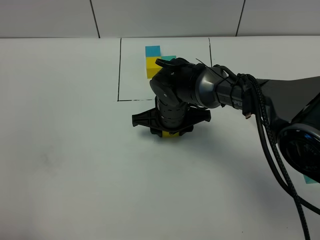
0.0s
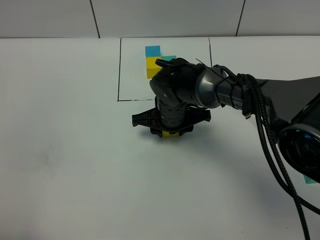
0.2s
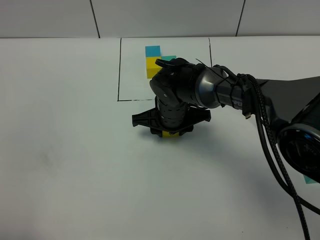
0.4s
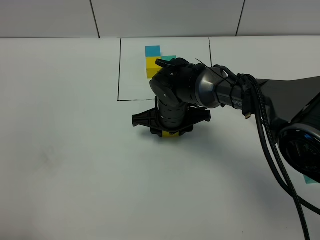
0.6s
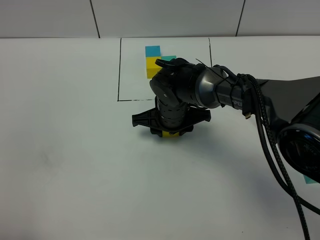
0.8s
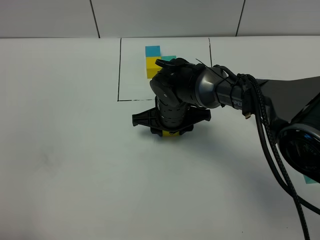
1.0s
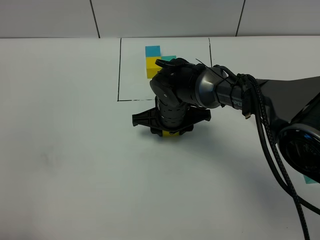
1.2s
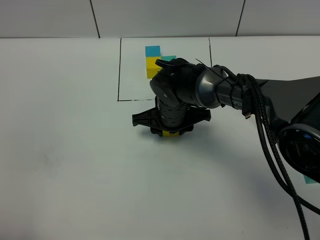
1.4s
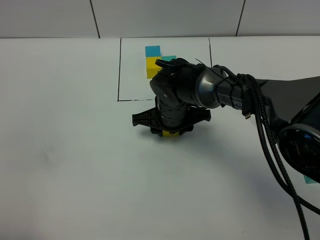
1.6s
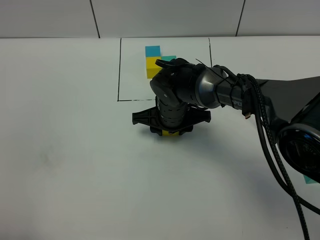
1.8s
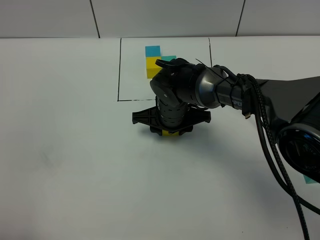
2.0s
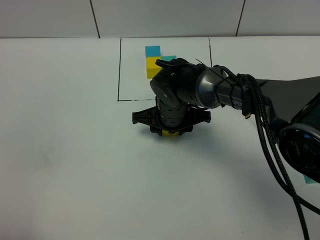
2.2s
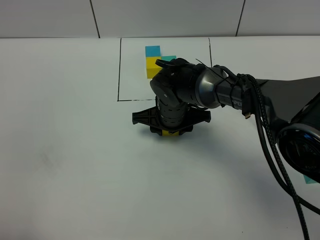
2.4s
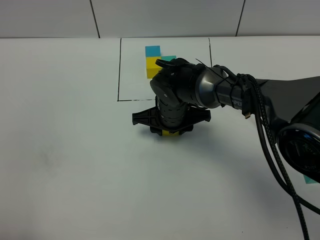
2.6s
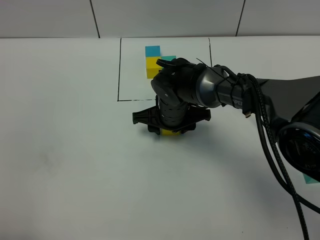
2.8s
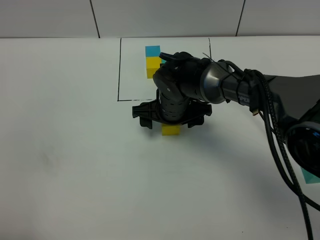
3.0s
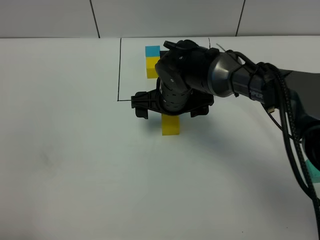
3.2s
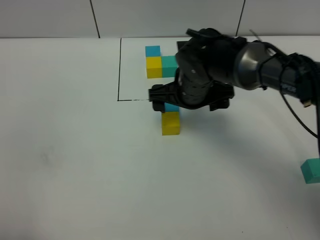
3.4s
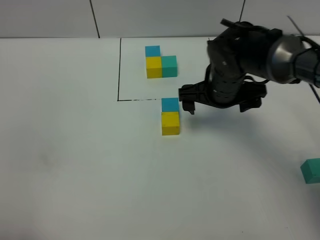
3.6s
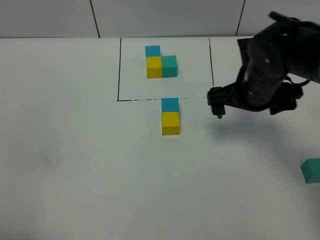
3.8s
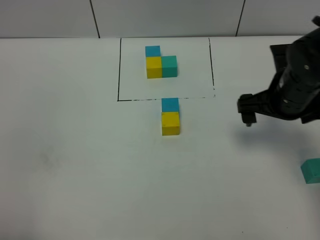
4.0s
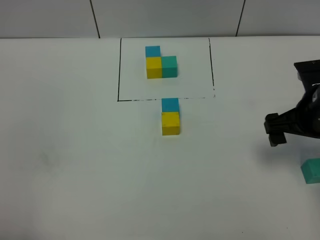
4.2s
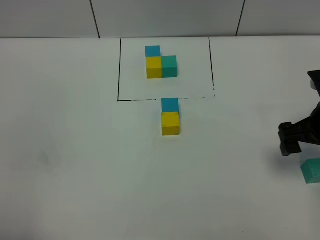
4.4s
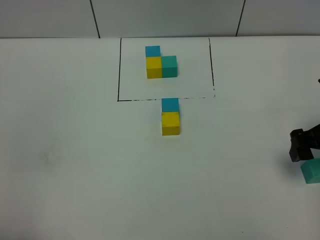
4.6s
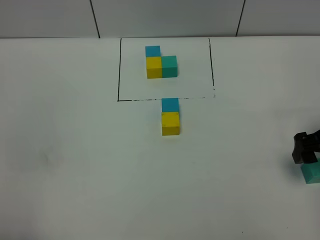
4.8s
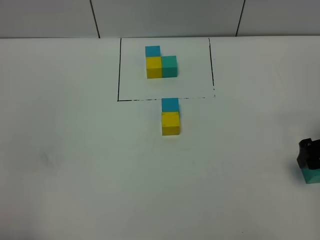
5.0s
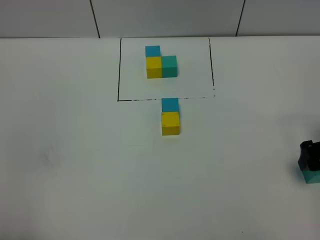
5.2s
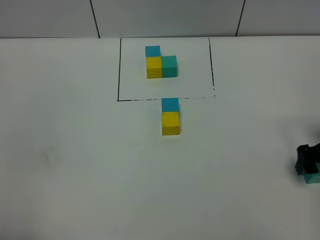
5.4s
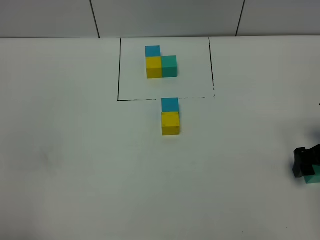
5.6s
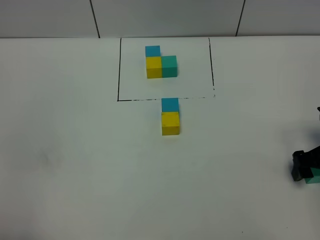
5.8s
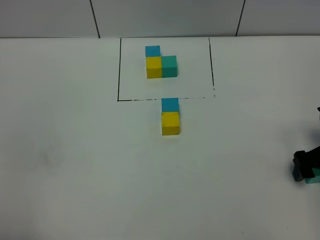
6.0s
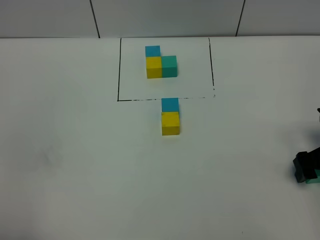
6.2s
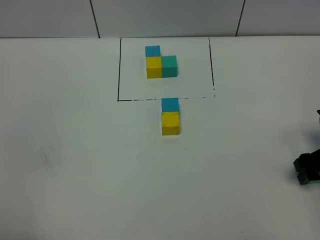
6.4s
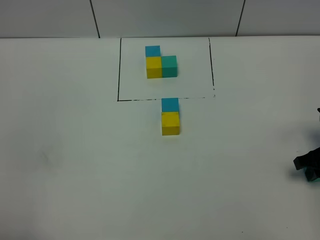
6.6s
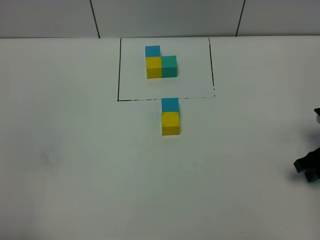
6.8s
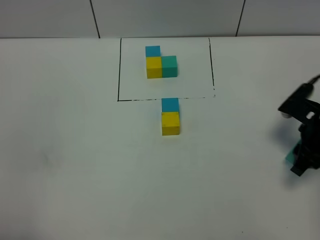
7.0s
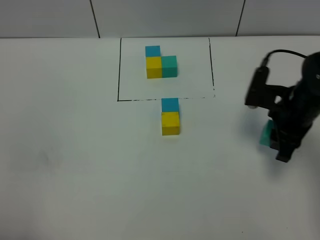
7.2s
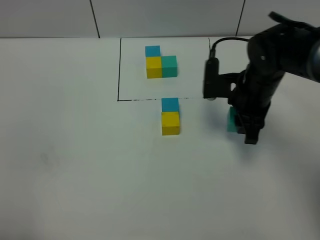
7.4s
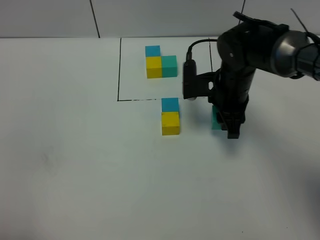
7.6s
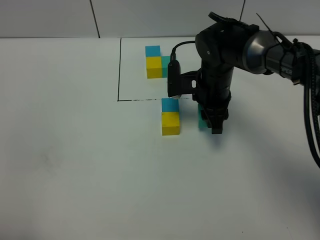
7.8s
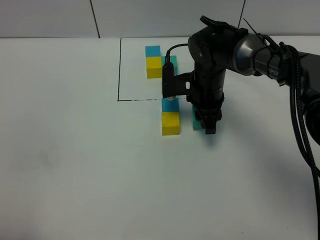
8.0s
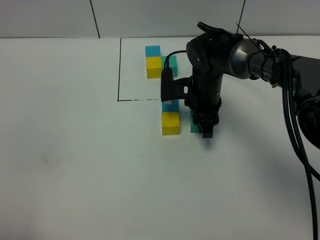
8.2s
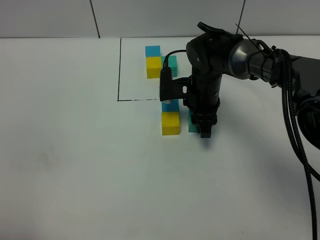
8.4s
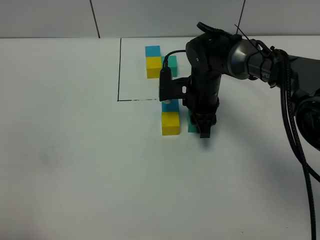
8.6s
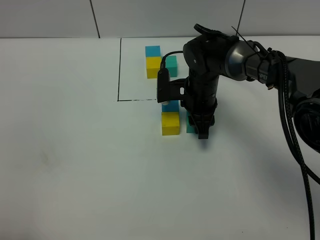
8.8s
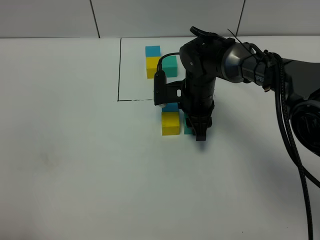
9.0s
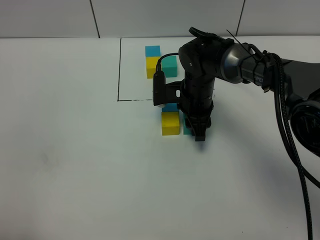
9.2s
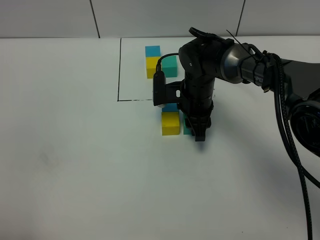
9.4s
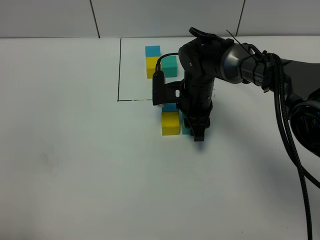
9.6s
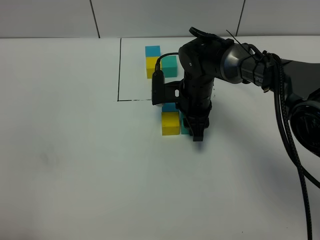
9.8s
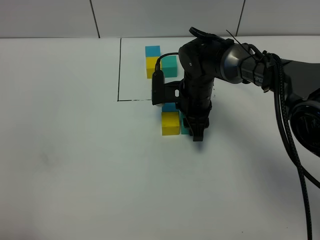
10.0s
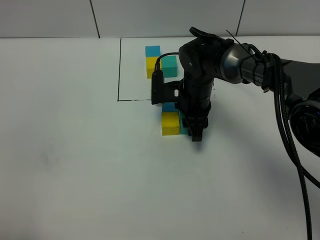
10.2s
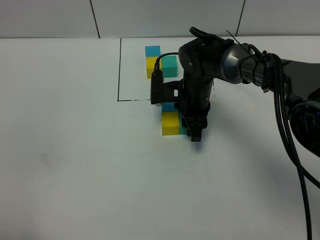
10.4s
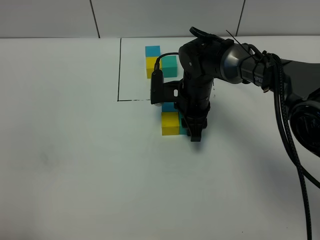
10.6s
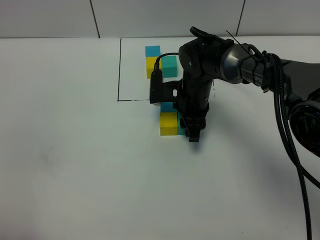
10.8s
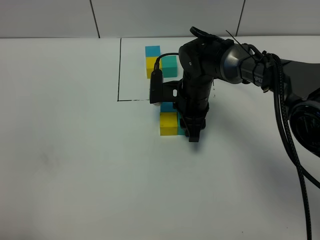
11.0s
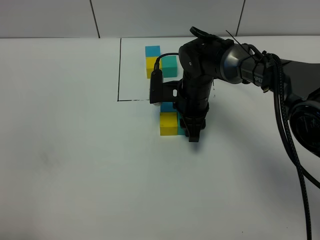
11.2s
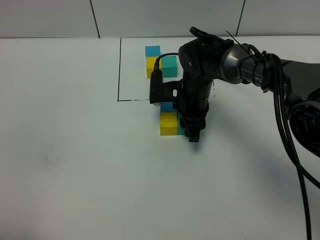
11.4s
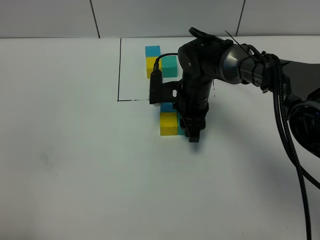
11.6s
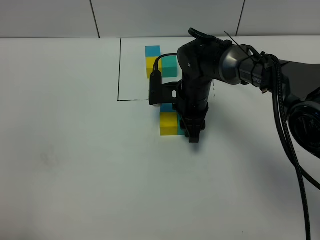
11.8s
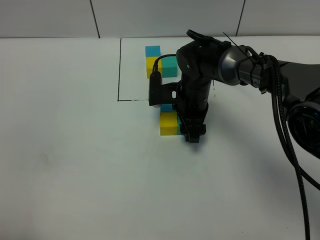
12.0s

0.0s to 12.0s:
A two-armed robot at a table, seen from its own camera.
Task of the whole recording: According to the building block template in front, assemble the scattered blocks together.
Step, 0.0s to 2.8s: Put the yellow build block on the behind of the blue build block.
Step, 3.0s to 12.0s: Put the green build block on the right of the yellow build block.
0.0s to 1.6s: Both grippers stay put.
1.6s to 3.0s: The right gripper opens up.
3.0s to 4.4s: The right gripper shifts some 30 cm to the right and backward.
4.4s to 6.0s: The right gripper goes roughly 10 cm downward and to the right.
6.0s to 7.6s: The right gripper travels to the left and forward by about 25 cm, and closes up.
7.6s to 9.0s: The right gripper goes about 5 cm to the left and downward.
9.0s to 10.4s: Neither gripper changes place.
10.4s to 12.0s: The right gripper opens up.

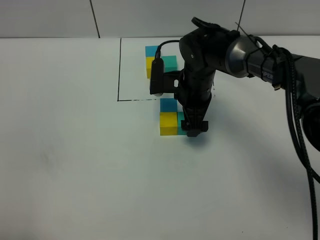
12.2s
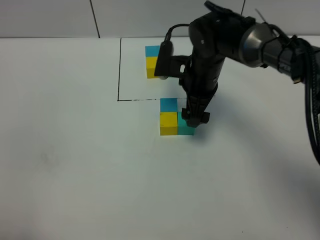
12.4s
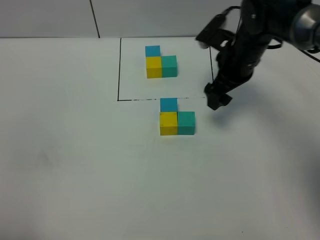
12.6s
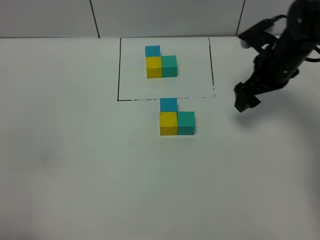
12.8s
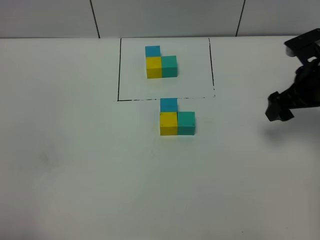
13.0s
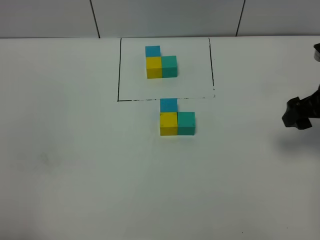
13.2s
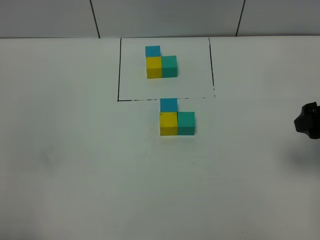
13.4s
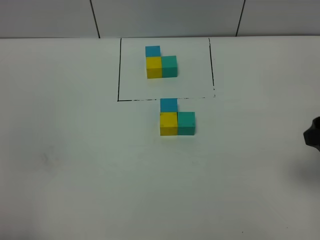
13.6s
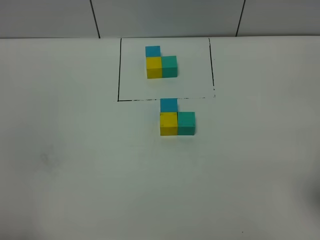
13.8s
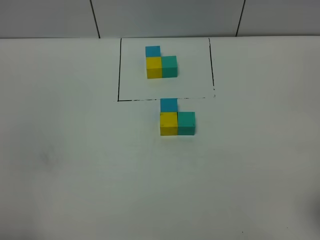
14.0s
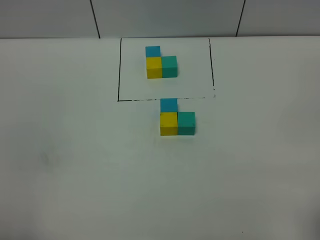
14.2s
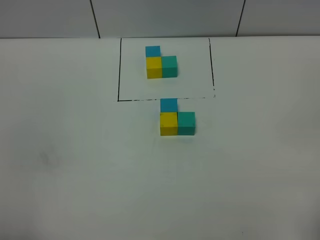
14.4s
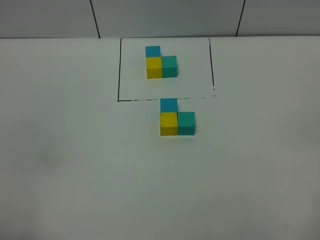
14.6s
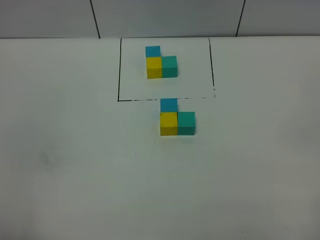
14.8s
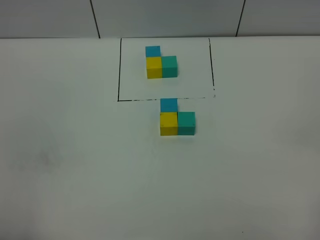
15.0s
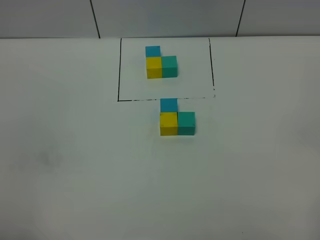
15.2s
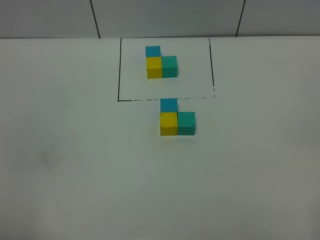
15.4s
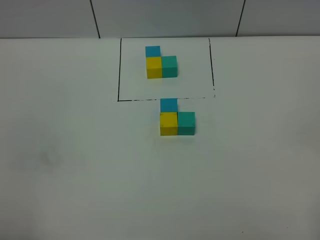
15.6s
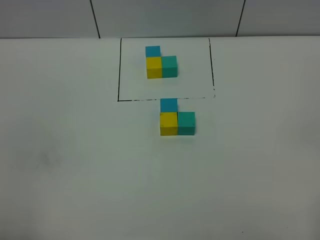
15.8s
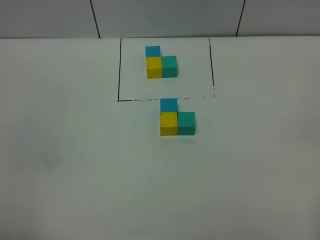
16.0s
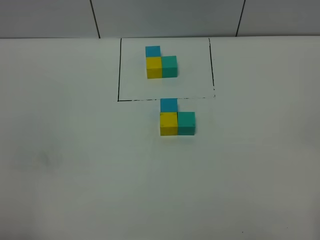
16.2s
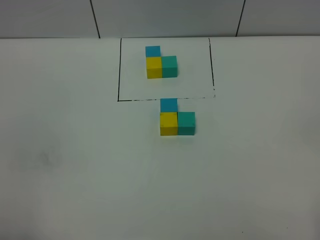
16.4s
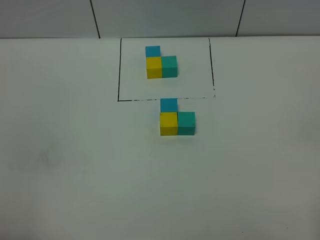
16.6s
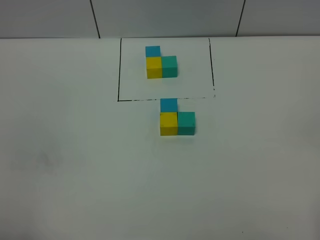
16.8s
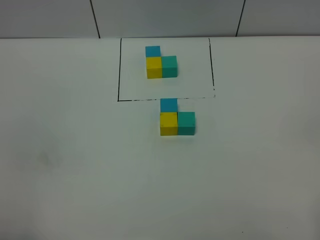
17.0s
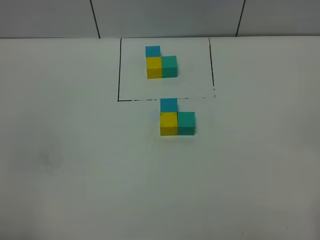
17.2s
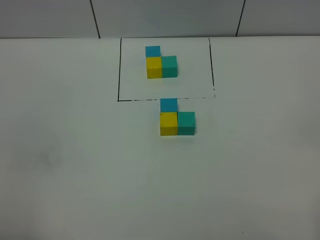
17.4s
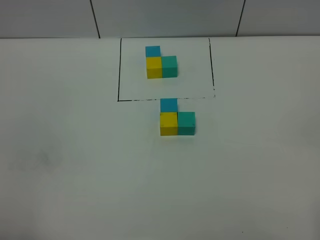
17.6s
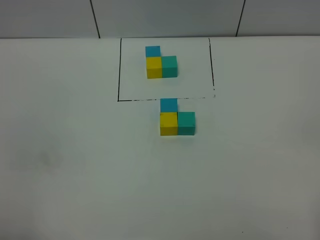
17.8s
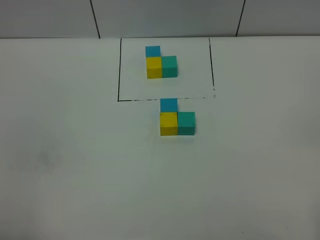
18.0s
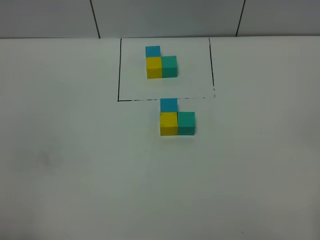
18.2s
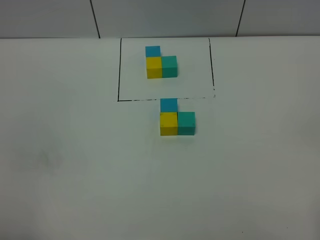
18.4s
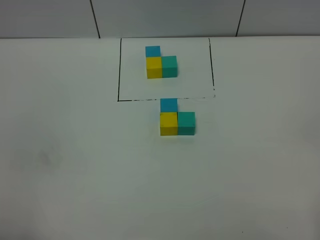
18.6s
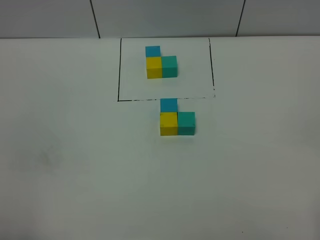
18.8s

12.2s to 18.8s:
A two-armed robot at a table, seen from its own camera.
Task of the whole recording: According to the building block template in front, assemble the scattered blocks together.
12.2s to 13.8s: The right gripper heads backward, to the right and upward, covering some 35 cm.
15.4s to 18.8s: Both grippers stay put.

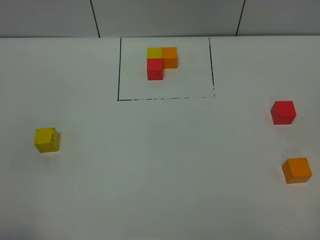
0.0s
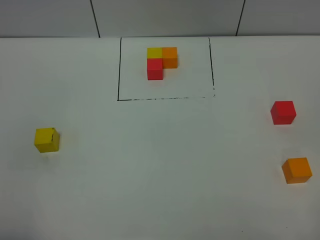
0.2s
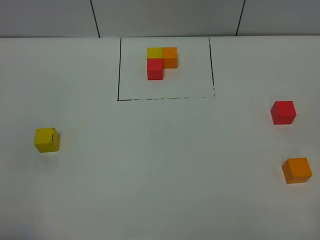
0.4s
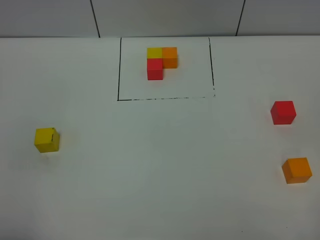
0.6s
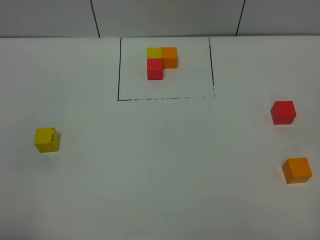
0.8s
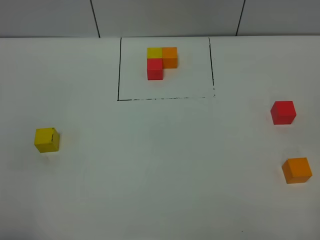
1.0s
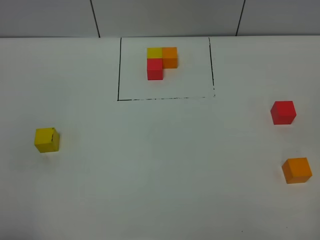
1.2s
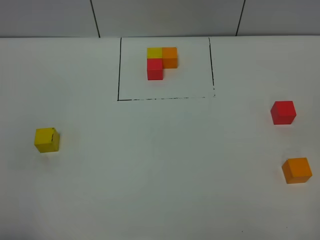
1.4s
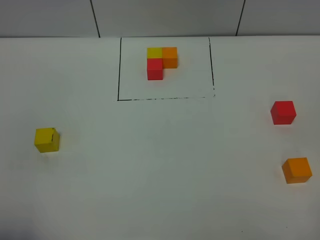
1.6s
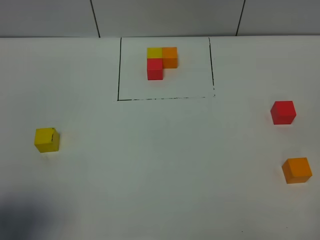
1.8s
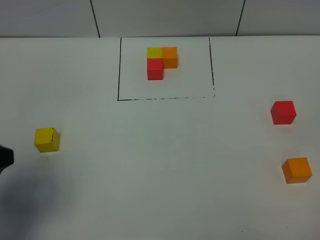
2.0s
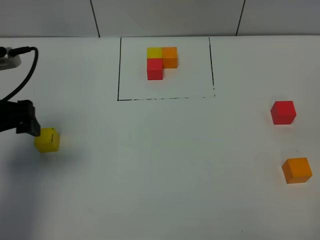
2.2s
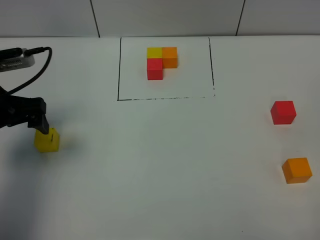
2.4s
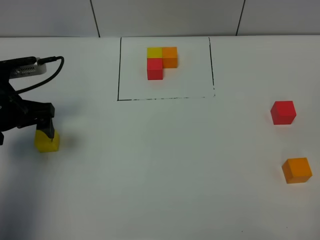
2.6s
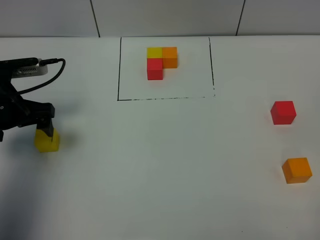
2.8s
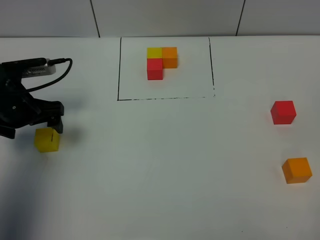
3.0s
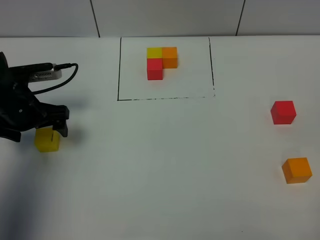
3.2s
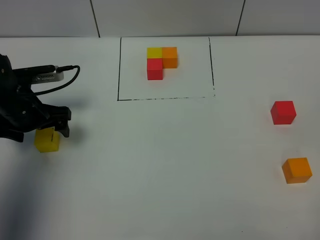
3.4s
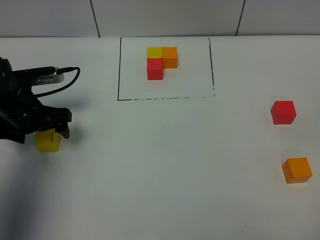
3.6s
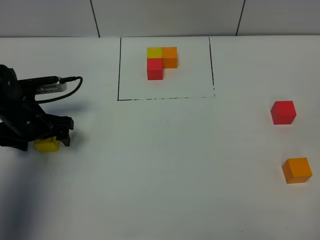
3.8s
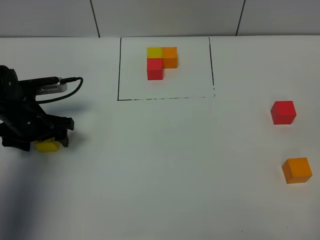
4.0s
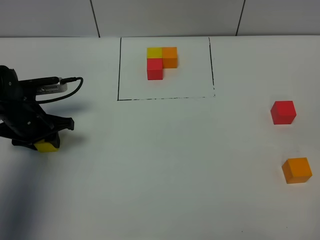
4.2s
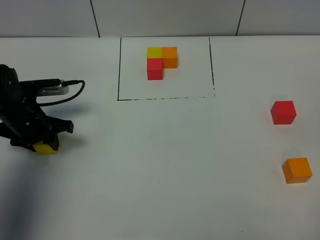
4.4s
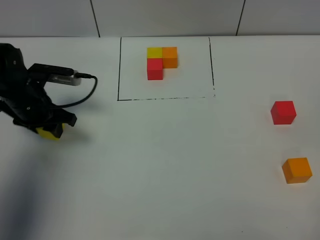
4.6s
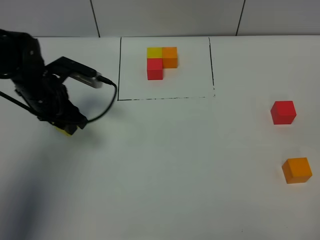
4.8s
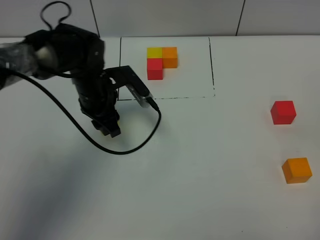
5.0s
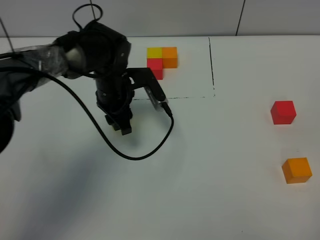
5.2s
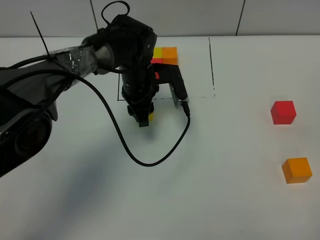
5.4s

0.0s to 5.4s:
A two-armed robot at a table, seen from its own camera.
Task of the whole recording: According to the building block template in front, assemble the scattered blocks together.
0.0s to 1.4s: The two grippers keep their place.
1.4s to 2.8s: The left gripper is displaced forward by roughly 30 cm, and opens its fingers.
2.8s to 4.0s: The left gripper travels downward by roughly 5 cm.
4.0s to 5.4s: The left gripper heads to the right, covering about 20 cm, and closes up.
